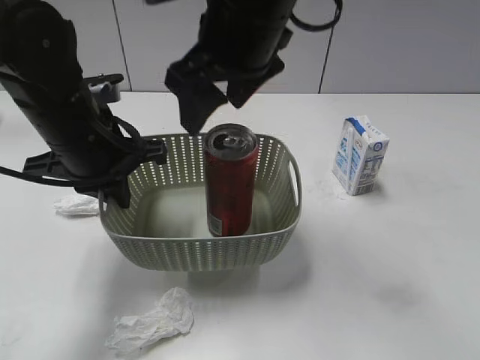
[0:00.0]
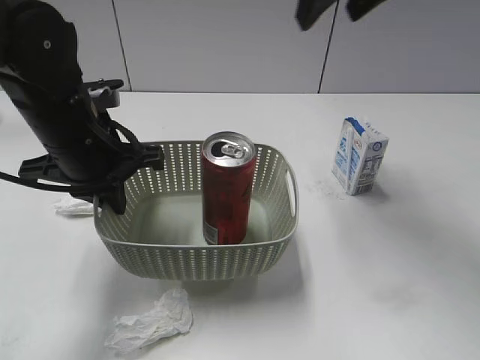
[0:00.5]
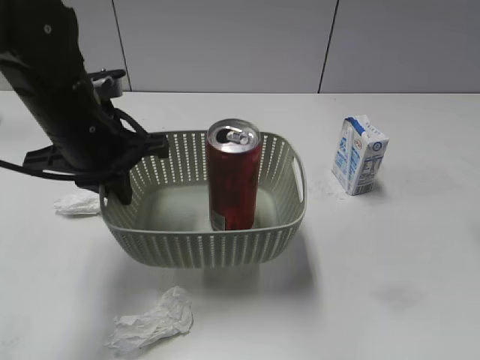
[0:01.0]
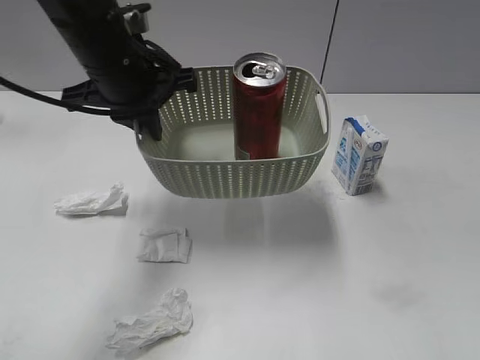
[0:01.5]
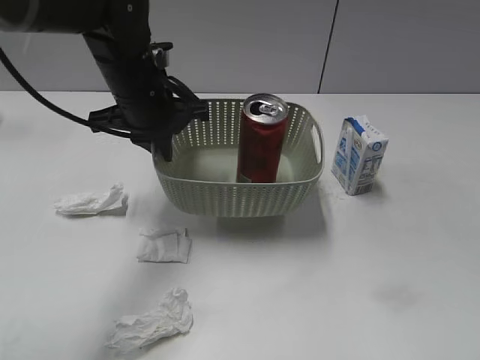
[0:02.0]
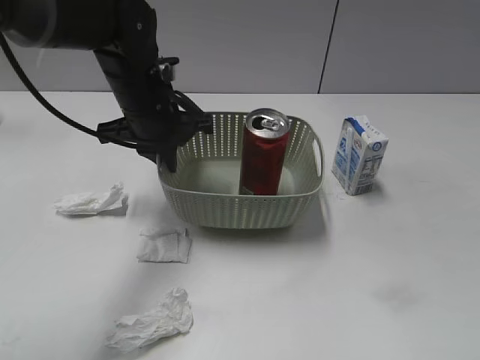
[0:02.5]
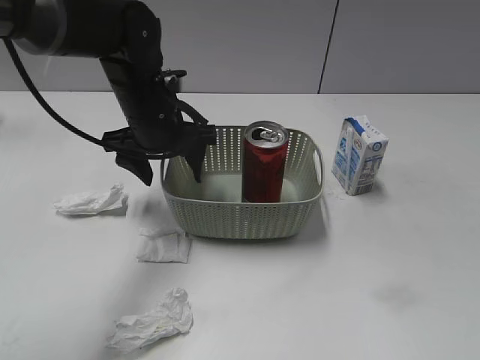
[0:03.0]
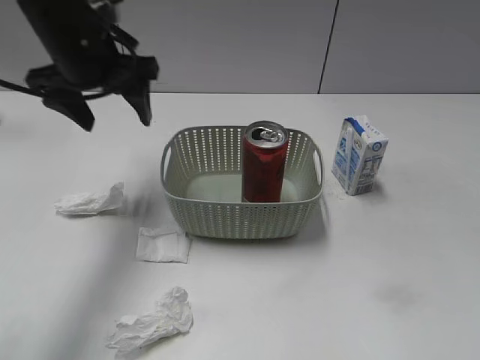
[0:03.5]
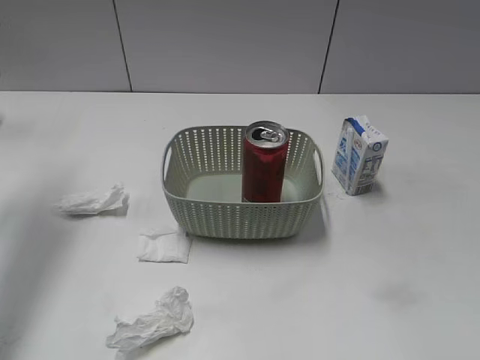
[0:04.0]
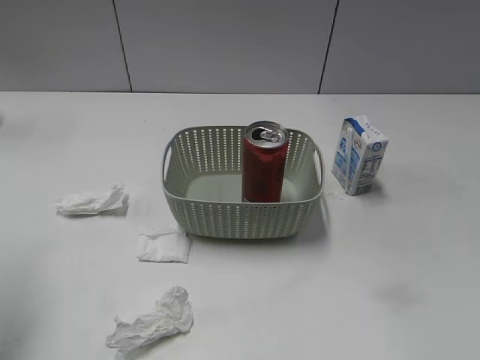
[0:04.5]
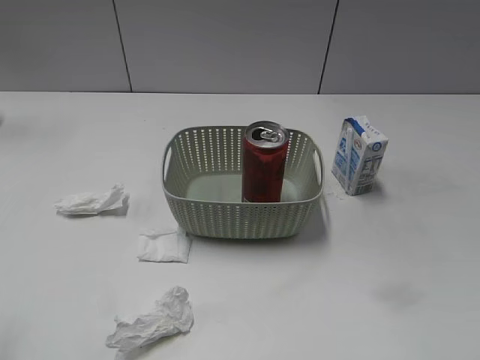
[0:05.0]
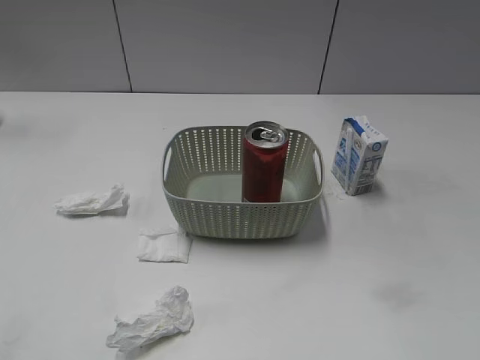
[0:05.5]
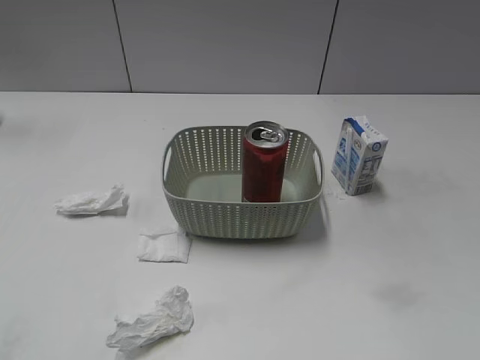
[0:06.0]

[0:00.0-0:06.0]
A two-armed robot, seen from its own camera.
Step, 0:00.5 to 0:03.0: Place the basket on the table with left gripper.
0:00.0 to 0:02.0: The left gripper shifts about 10 cm forward. The right gripper is displaced to the right and backward by some 40 cm.
0:02.0 to 0:04.0: The left gripper shifts about 25 cm to the left and upward, and opens.
0:04.0 to 0:06.0: The left gripper heads backward, covering roughly 35 cm.

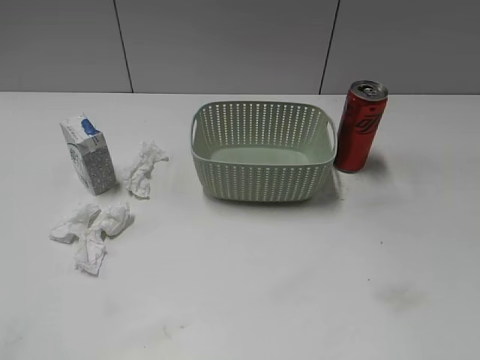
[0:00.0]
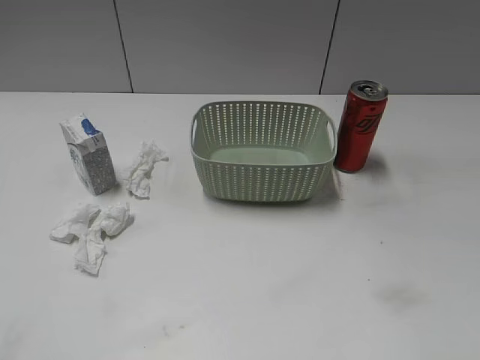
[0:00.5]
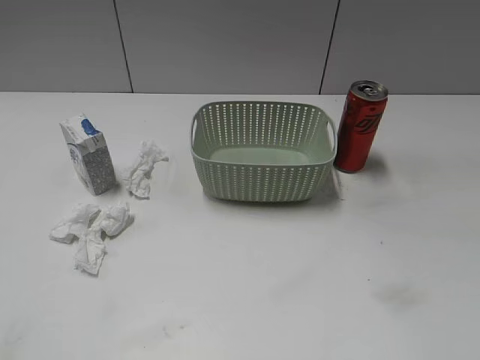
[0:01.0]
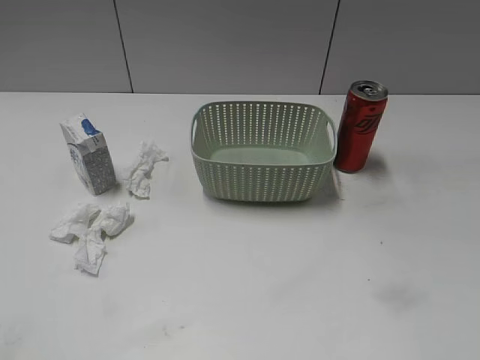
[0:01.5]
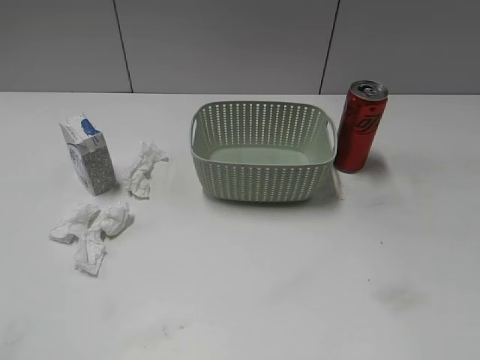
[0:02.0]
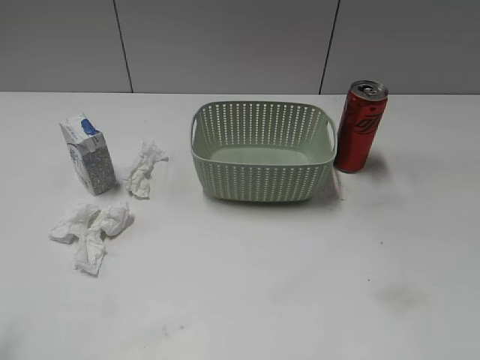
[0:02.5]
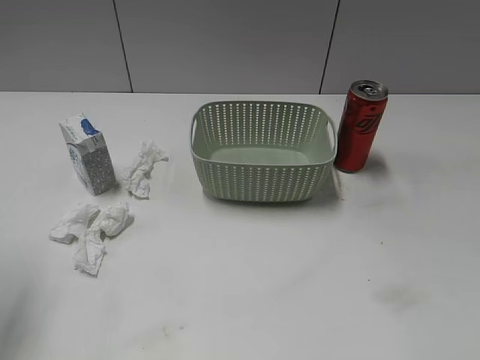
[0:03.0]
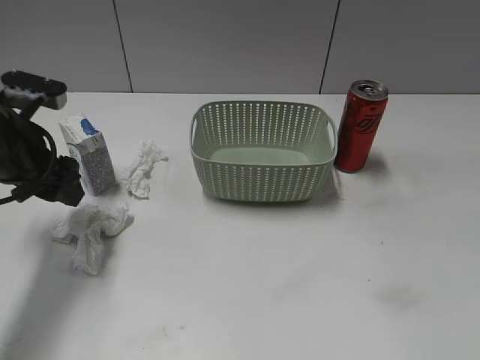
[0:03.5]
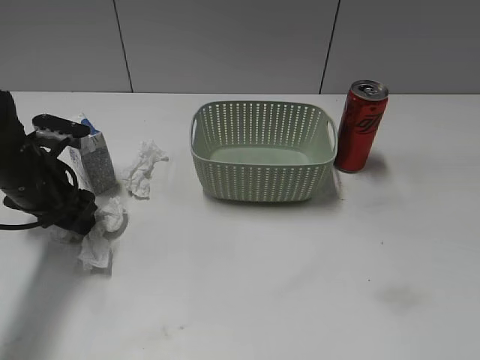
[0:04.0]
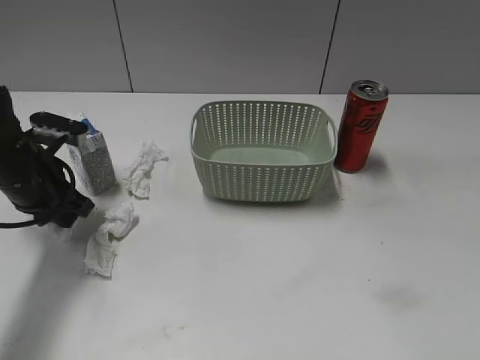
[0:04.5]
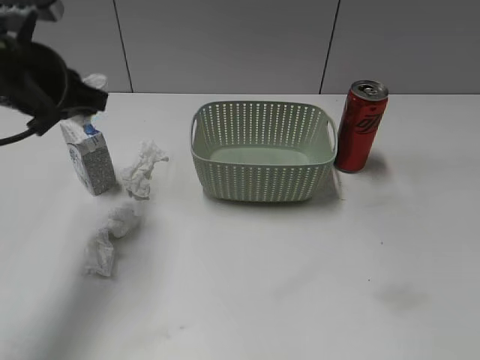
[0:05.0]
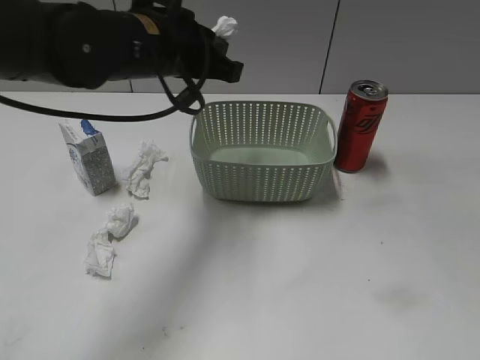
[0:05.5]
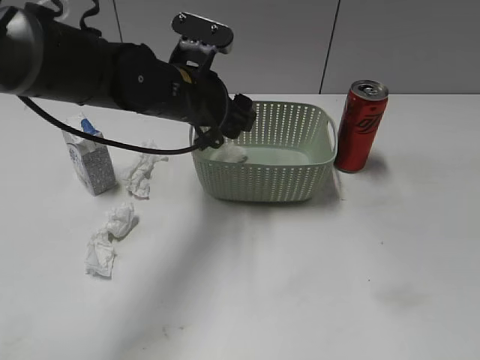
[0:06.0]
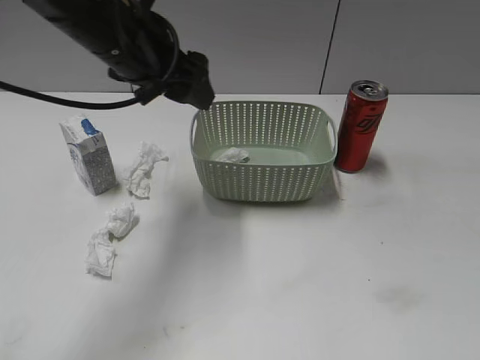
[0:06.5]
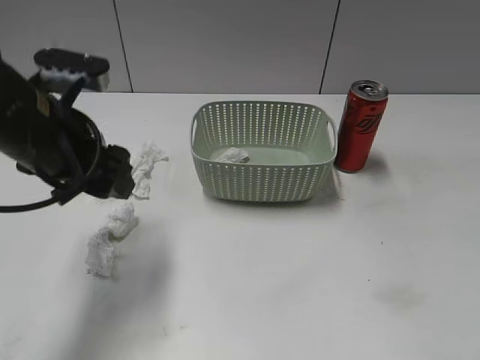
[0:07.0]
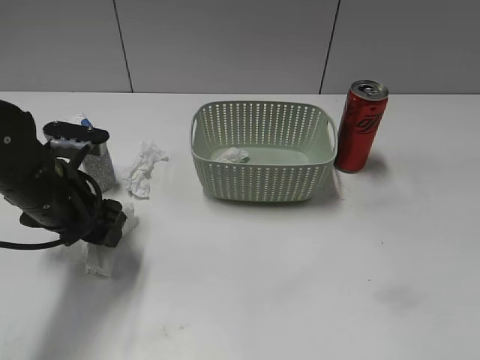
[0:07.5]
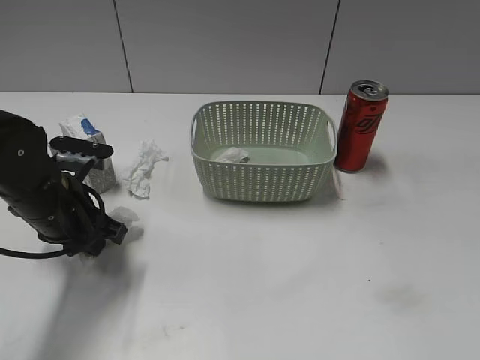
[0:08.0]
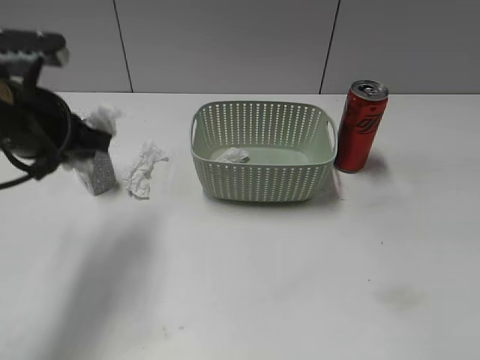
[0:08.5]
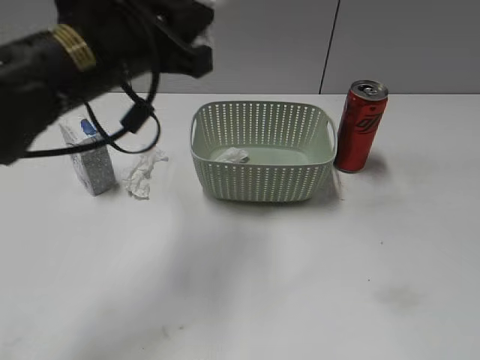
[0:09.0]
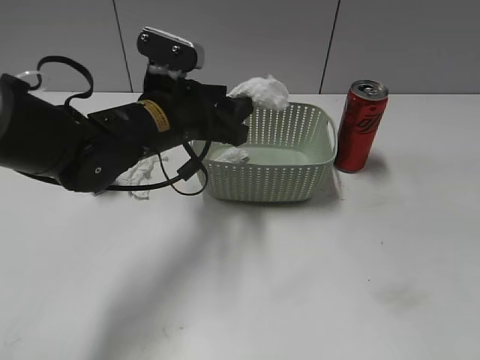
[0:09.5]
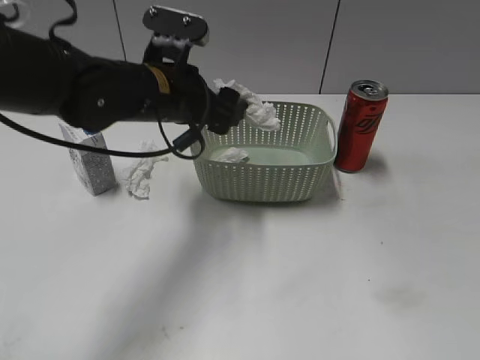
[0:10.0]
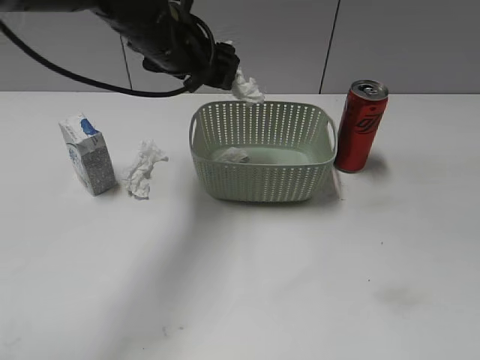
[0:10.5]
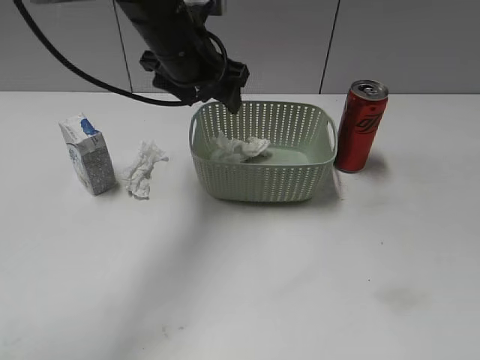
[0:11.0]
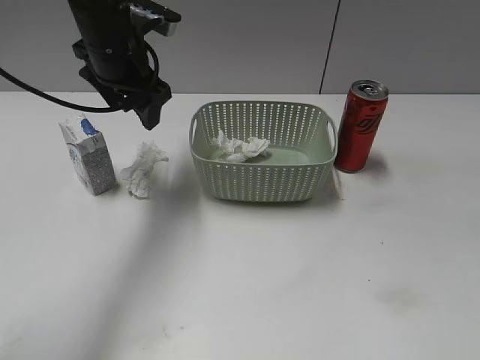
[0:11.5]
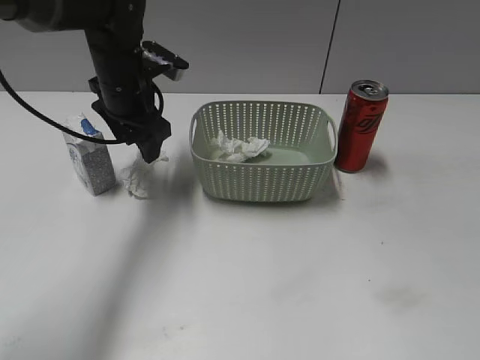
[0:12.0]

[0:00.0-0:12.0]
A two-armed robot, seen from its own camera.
Step, 0:03.0 to 0:04.5: Grasp the waste paper with left gripper.
Step, 0:05.0 to 0:06.0: Place the waste paper in the basket with left gripper.
Step, 0:06.5 to 0:08.0: Grasp the waste paper with left gripper.
Step, 0:08.5 to 0:11.0: Place the waste paper in the basket with left gripper.
0:02.0 to 0:04.0: The left gripper goes approximately 35 cm forward and downward.
0:04.0 to 0:06.0: The left gripper shifts approximately 15 cm to the right, and closes, then opens again.
0:06.0 to 0:08.0: The left gripper shifts roughly 15 cm to the left, backward and downward, and closes its fingers.
0:08.0 to 0:10.0: The left gripper is displaced to the right, upward and forward by roughly 15 cm, and opens.
0:10.0 to 0:12.0: The left gripper goes roughly 10 cm forward.

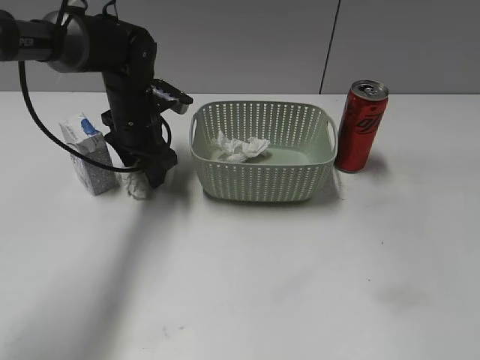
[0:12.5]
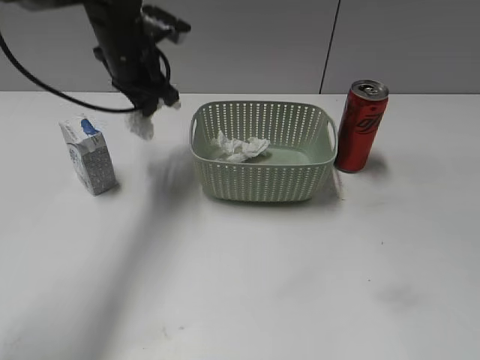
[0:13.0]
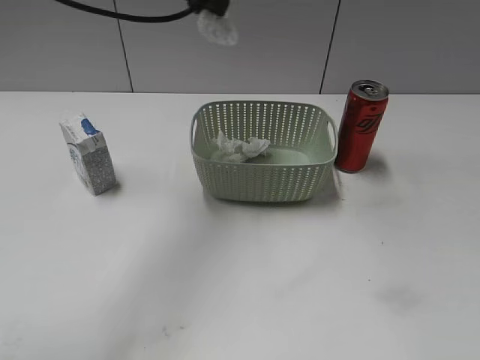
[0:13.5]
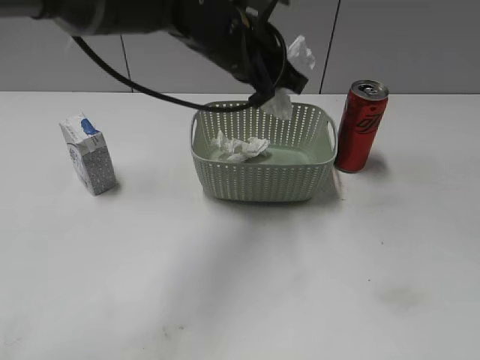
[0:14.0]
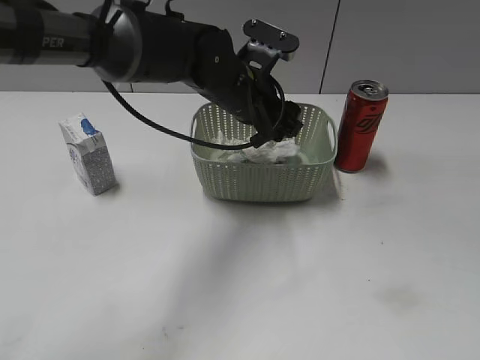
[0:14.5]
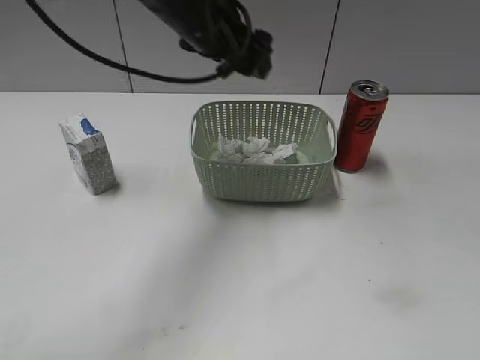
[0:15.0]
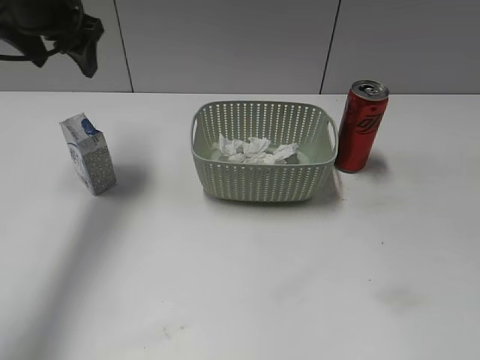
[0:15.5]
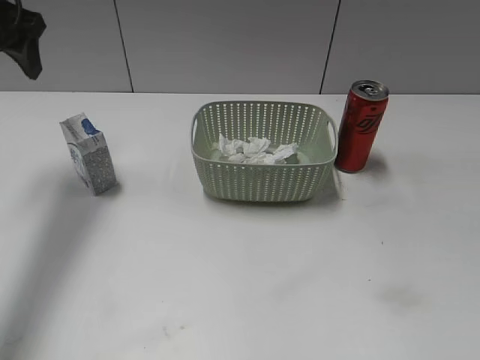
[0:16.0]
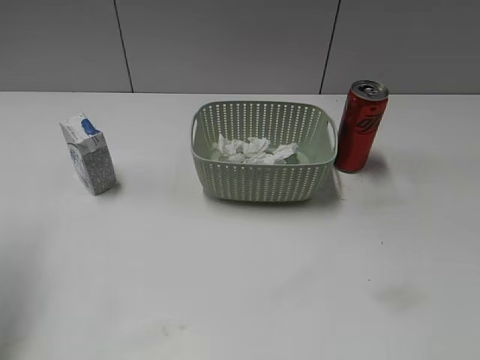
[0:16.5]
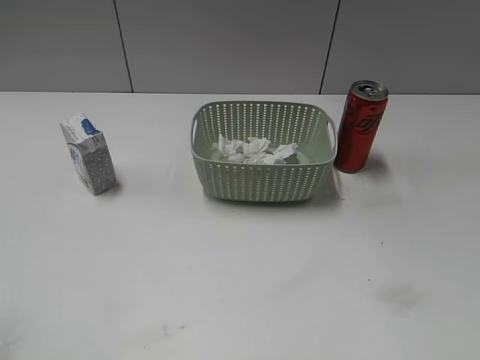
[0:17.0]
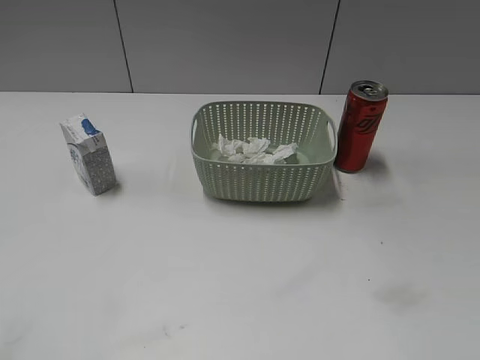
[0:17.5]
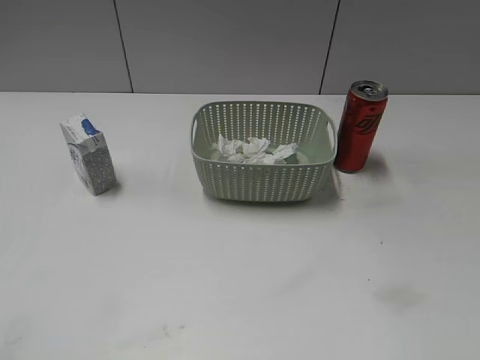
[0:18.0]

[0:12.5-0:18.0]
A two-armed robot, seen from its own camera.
Step, 0:13.0 to 0:14.5: Place the waste paper in the basket with left gripper.
0:12.5 to 0:14.5: The left gripper is displaced to the right by approximately 15 cm, reaches about 20 cm upward, then returns, and closes, then reopens.
0:14.5 to 0:16.0: The left gripper is displaced to the left and upward by some 30 cm.
0:16.0 to 0:18.0: The left gripper moves backward, about 40 cm.
